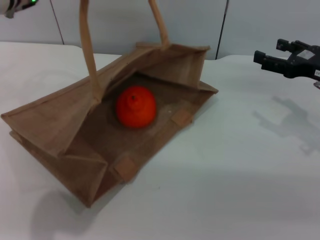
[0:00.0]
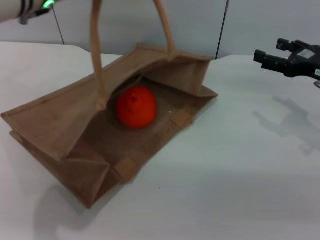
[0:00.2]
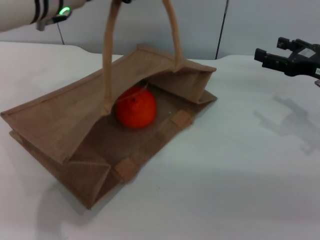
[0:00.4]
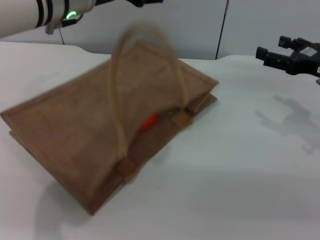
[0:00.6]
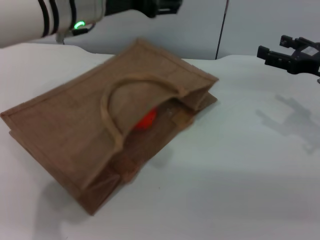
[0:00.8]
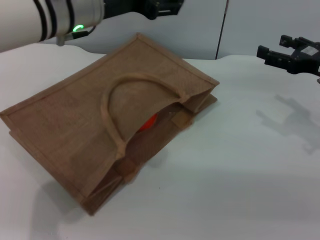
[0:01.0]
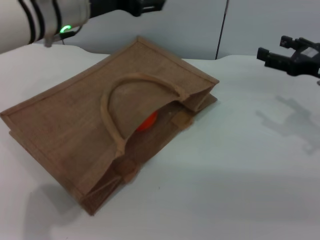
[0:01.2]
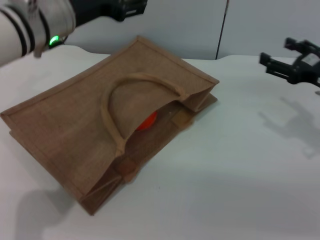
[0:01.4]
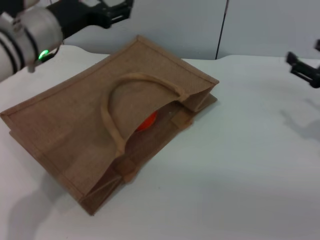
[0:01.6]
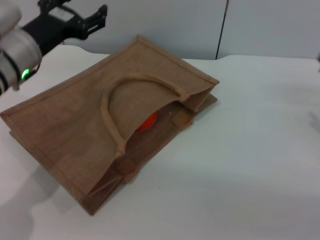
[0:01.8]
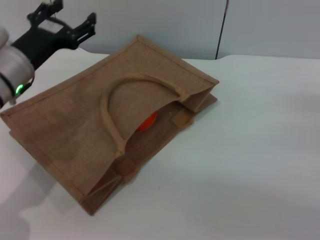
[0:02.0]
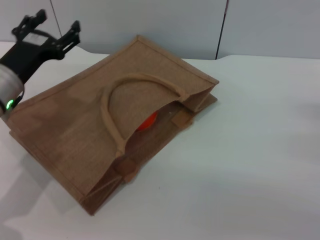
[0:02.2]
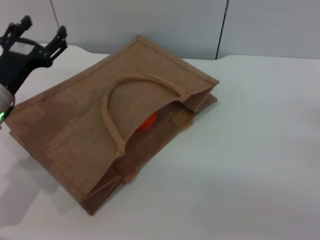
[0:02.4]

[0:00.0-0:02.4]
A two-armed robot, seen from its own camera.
Task of the whole recording: pick up the orange from the table and place it in the brown handbag.
0:01.2 to 0:02.4: The right gripper shifts some 15 cm backward, downward and to the right. The left gripper shifts approximately 20 cm downward and to the left.

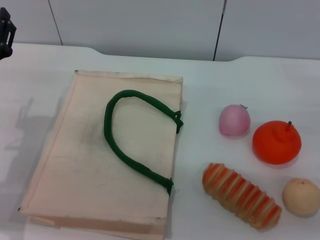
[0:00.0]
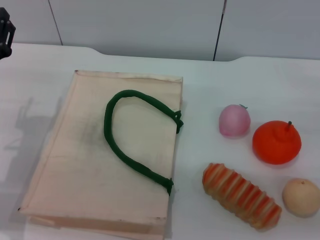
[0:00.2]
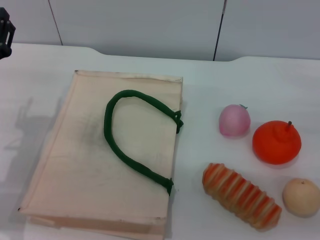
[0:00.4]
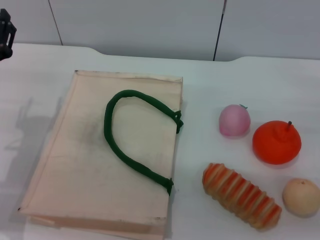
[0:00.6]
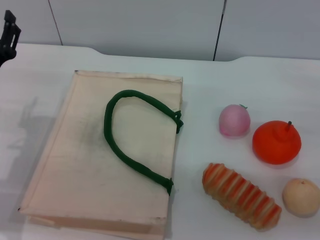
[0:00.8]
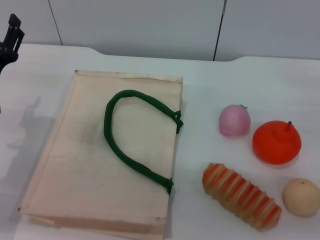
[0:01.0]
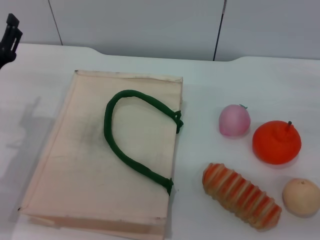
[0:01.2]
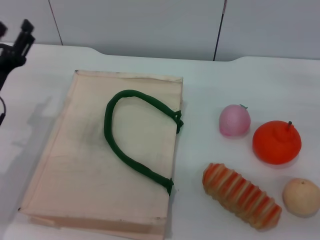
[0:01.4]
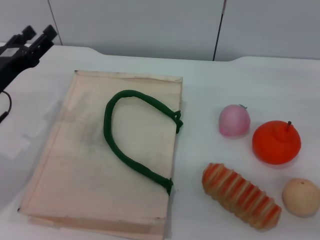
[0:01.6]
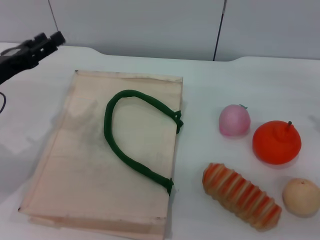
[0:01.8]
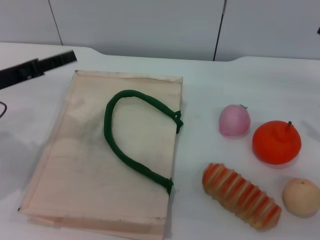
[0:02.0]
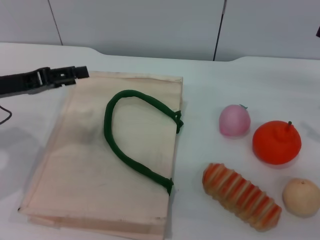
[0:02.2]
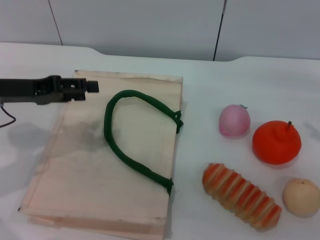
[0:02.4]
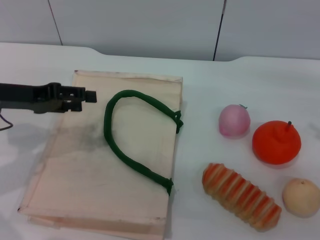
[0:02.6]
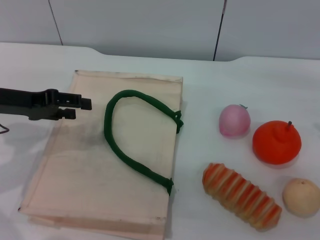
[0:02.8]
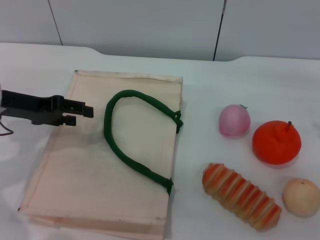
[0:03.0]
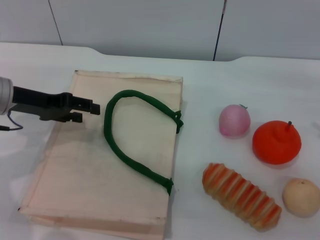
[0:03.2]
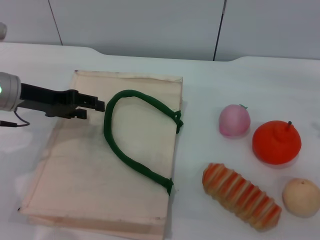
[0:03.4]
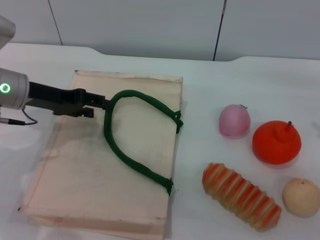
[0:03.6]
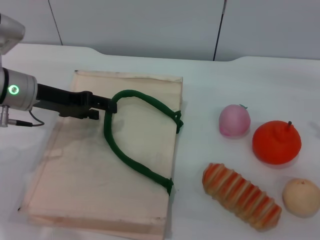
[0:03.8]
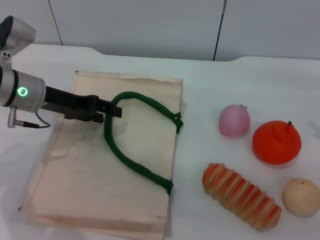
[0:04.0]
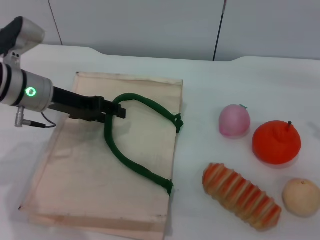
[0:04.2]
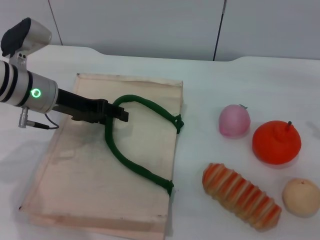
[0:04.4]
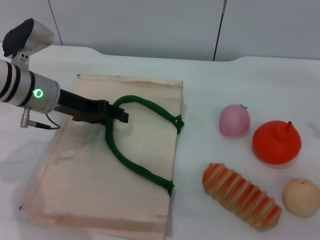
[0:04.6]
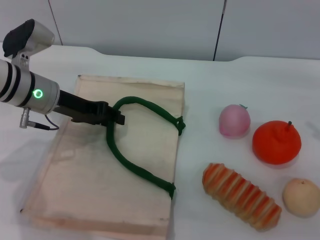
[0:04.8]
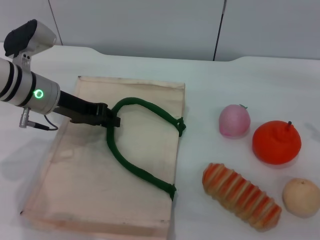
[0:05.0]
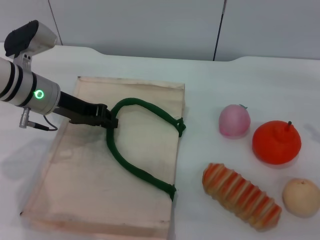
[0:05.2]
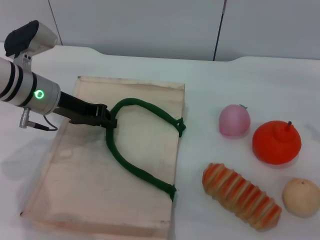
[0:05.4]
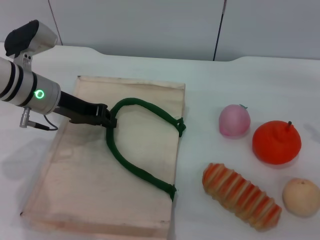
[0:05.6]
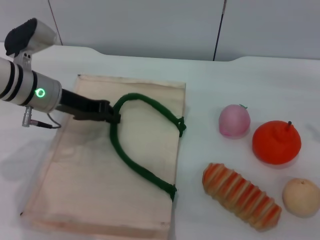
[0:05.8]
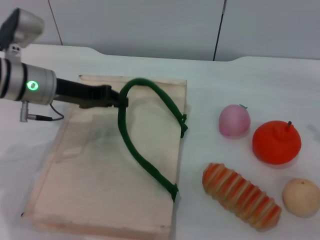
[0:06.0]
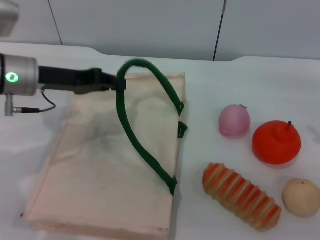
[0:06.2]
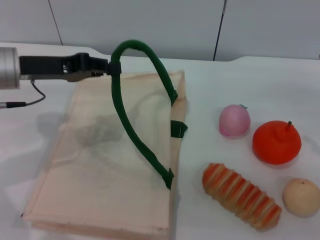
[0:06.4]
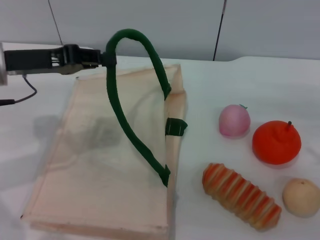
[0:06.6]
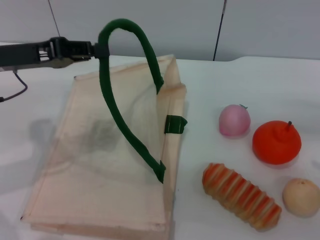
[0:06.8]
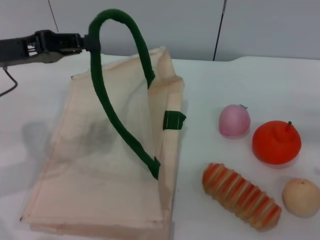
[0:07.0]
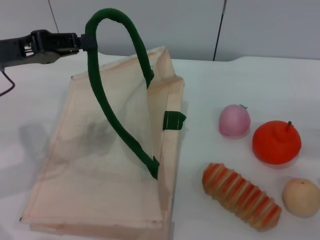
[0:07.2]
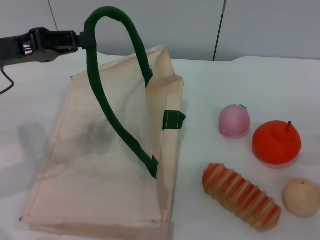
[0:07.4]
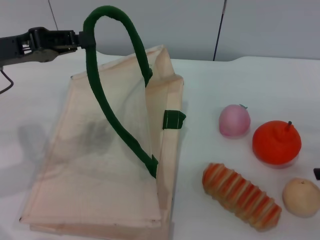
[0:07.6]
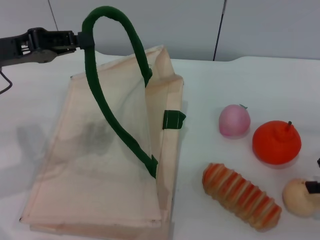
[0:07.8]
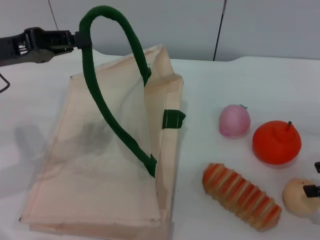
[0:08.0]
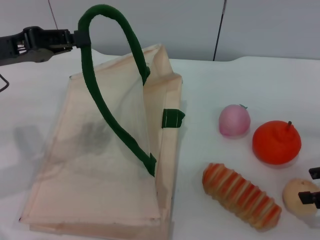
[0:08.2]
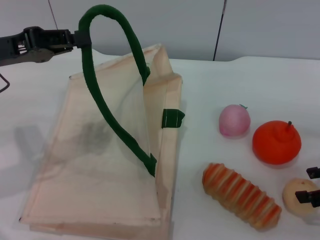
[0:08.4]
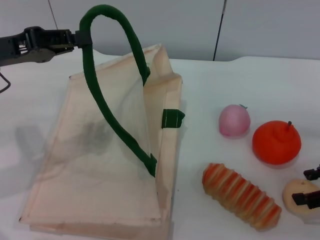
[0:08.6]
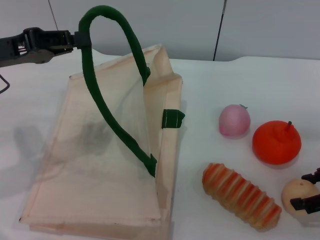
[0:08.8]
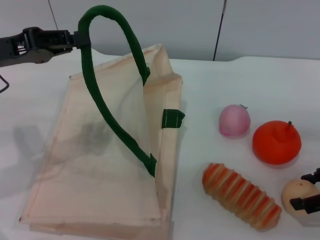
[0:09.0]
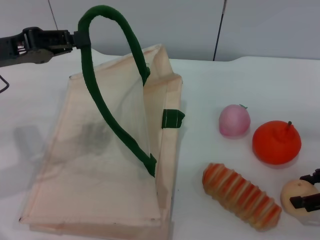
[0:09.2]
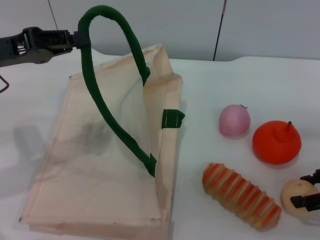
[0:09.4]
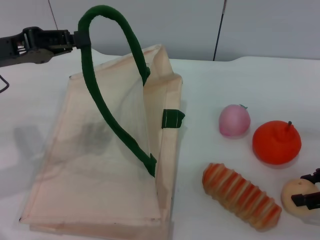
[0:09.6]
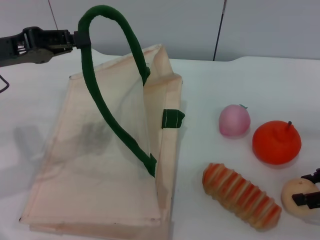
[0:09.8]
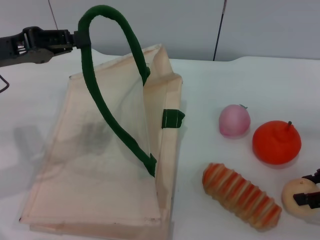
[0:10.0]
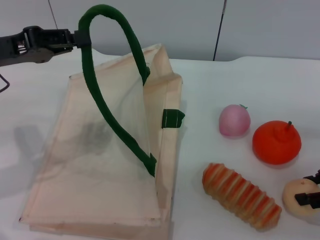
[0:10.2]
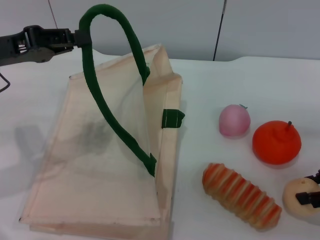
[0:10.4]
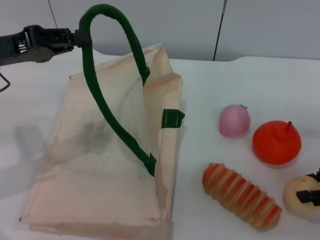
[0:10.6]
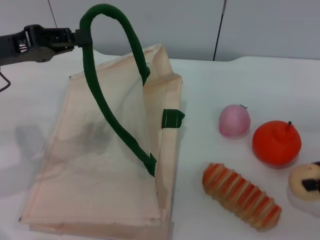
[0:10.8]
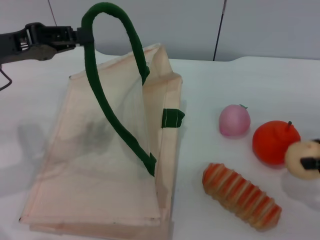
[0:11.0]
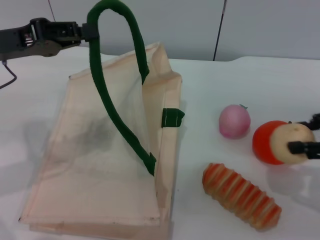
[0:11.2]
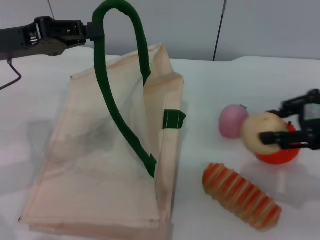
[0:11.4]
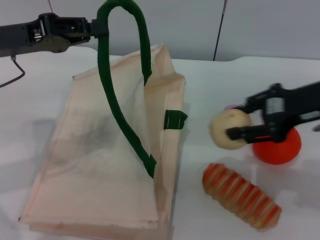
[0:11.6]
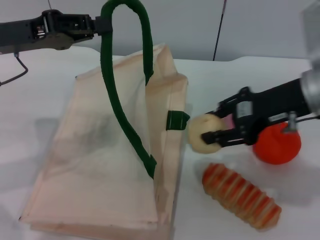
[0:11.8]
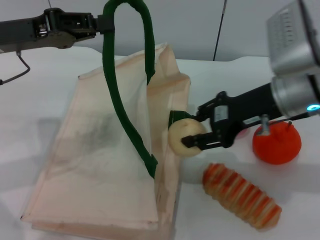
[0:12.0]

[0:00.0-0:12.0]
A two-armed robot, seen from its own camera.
Task of the whole recording: pick up the egg yolk pastry from the table and place it in the white handbag.
Step, 0:00.0 to 0:06.2: Lift the woven bag with the left gripper to open it.
Step, 0:06.4 to 0:11.2: Pick up the egg yolk pastry with the right gripper.
0:01.6 to 0:03.0: The left gripper goes about 5 cm upward.
0:03.0 to 0:04.4: The left gripper travels to the right by approximately 5 cm.
0:04.4 to 0:06.0: The left gripper closes.
0:06.0 to 0:07.6: The right gripper shifts by some 5 cm. Meanwhile the left gripper goes approximately 10 cm upward, backward and to the left.
0:07.6 to 0:09.0: The grippers stay close to where they were, moving slightly.
0:09.0 to 0:10.4: The right gripper closes up.
0:10.4 to 0:12.0: The right gripper is displaced to the left and forward by approximately 20 cm.

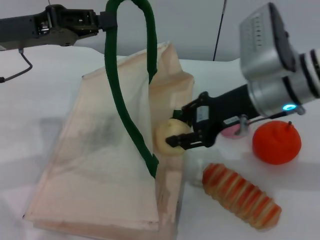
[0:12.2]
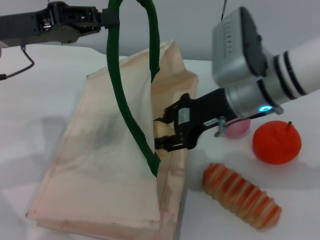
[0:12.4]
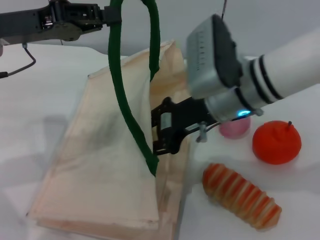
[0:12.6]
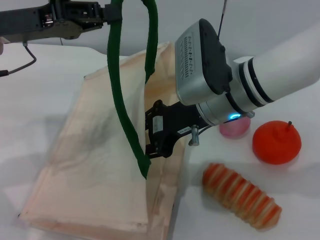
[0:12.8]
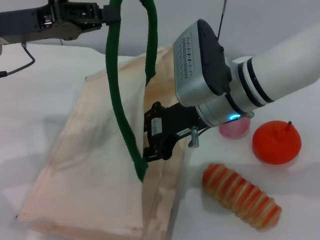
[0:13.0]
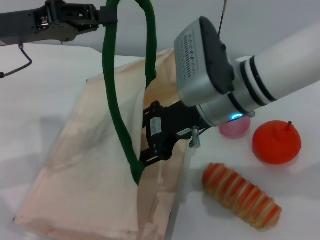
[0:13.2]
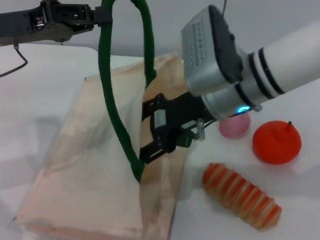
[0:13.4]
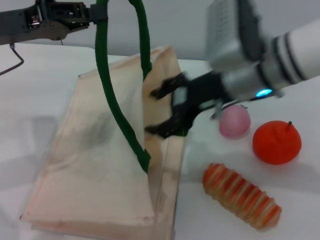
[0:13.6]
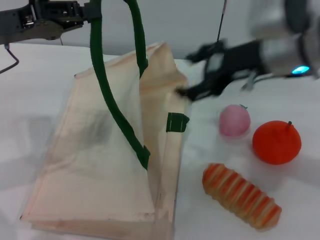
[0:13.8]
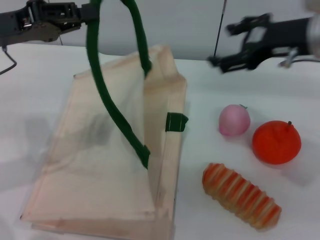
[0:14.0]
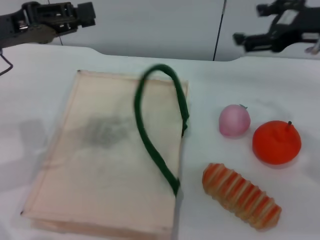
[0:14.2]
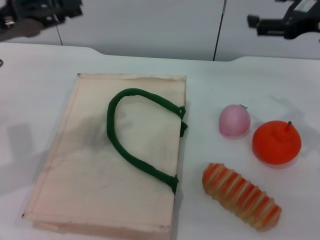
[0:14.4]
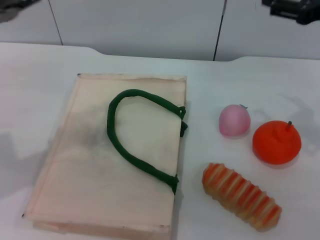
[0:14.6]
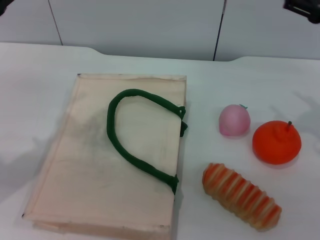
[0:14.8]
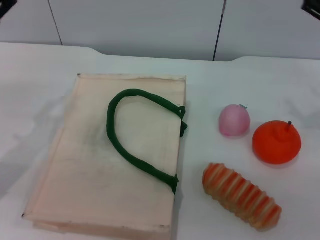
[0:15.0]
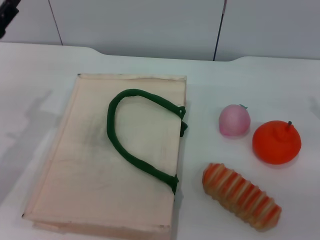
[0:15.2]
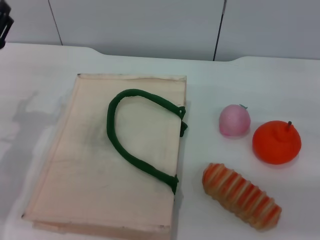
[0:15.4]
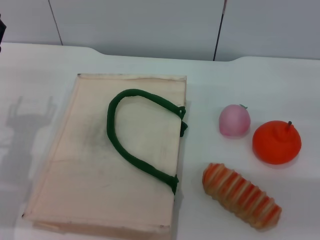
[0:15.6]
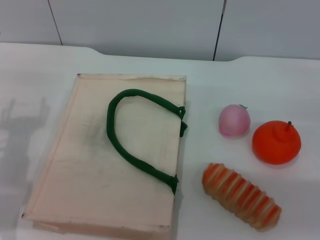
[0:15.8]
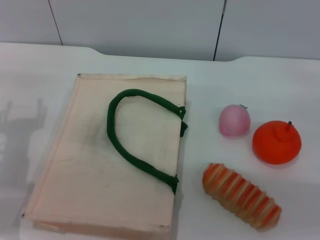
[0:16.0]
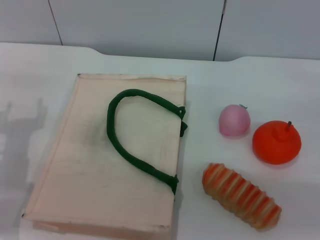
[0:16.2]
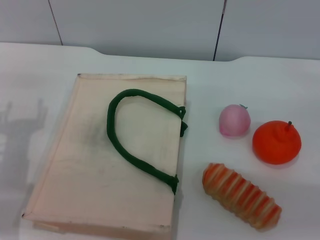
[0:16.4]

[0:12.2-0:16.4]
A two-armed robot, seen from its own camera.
Task of the whole recording: pick up the egg yolk pastry from the table and place it in the white handbag.
Step, 0:12.2 to 0:13.8: Place the egg yolk pastry into the woven bag with the right gripper.
Step, 0:14.0 to 0:14.6: Lower the woven bag with the left gripper to close it.
0:12.2 to 0:13.6: The right gripper opens its fingers.
0:13.6 to 0:15.0: The left gripper travels downward by some 5 cm, and opens. Meanwhile the right gripper moves to the right, about 20 cm.
0:15.0 to 0:16.4: The left gripper is displaced downward by roughly 5 cm.
